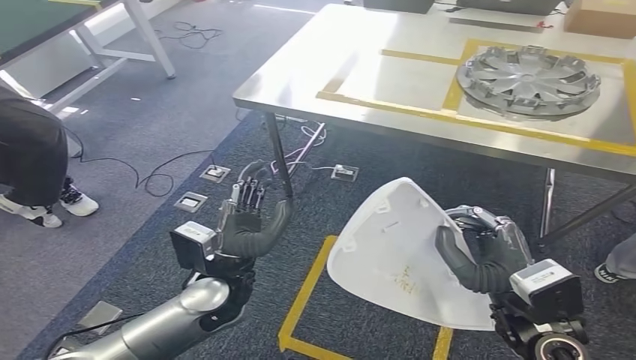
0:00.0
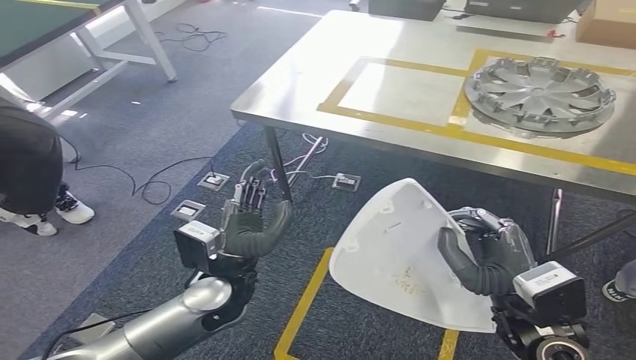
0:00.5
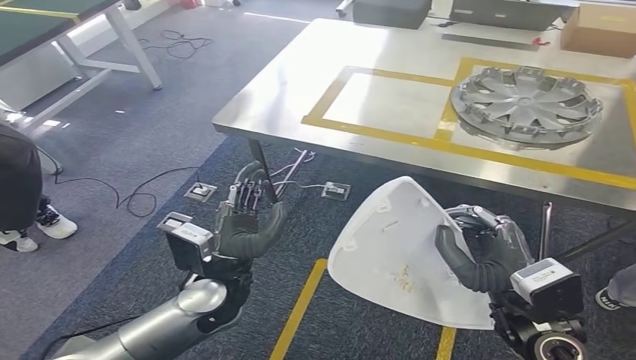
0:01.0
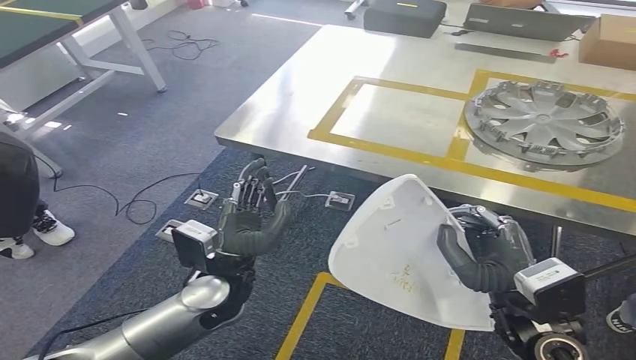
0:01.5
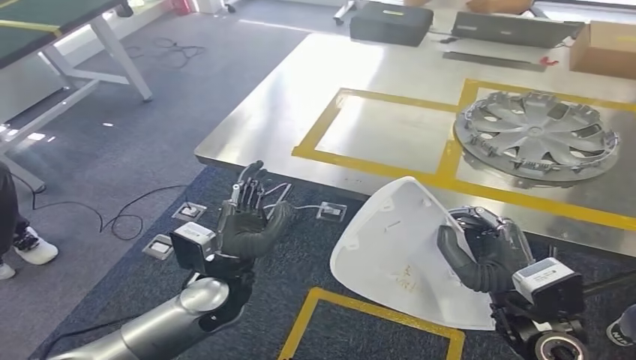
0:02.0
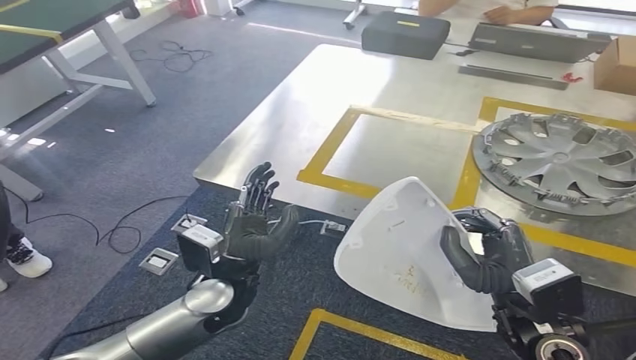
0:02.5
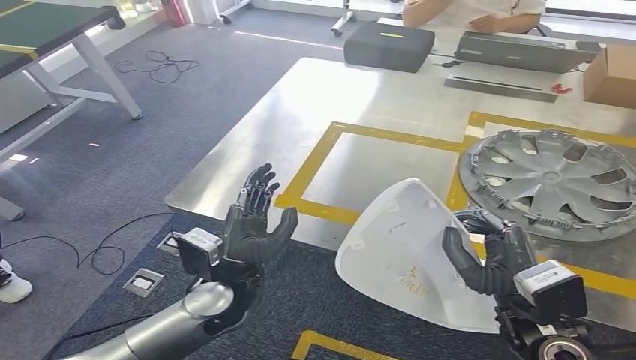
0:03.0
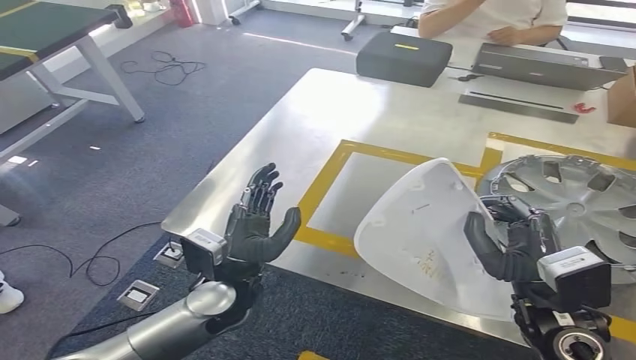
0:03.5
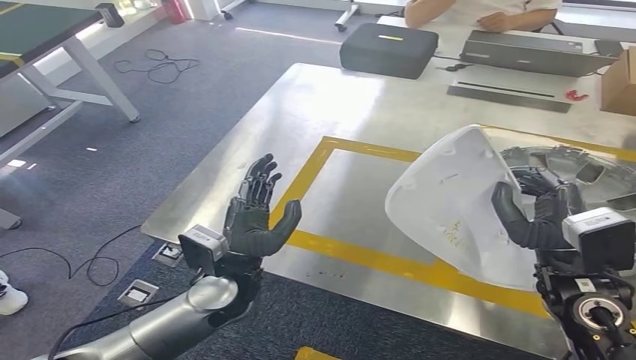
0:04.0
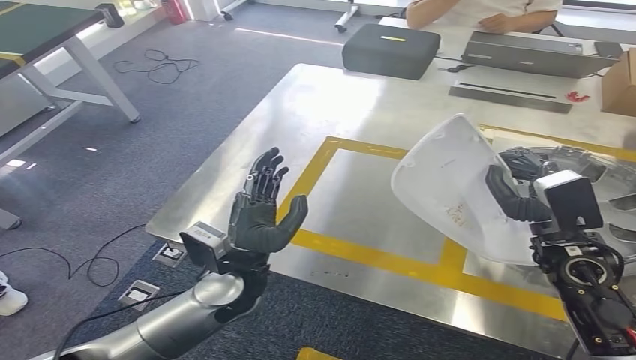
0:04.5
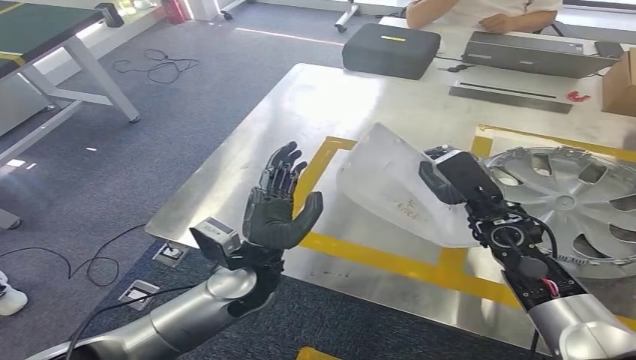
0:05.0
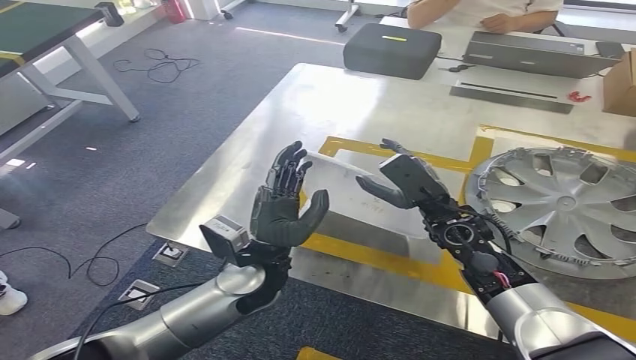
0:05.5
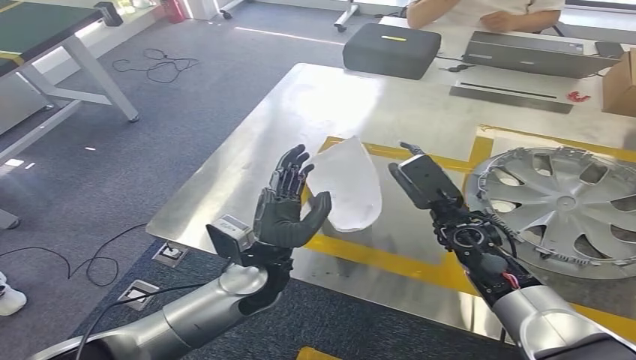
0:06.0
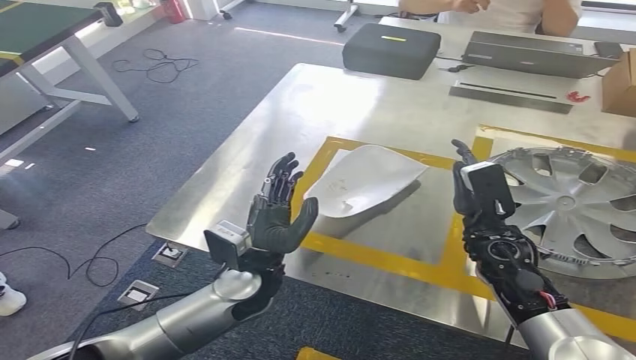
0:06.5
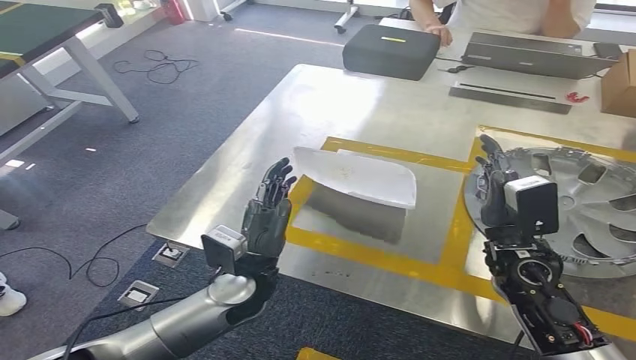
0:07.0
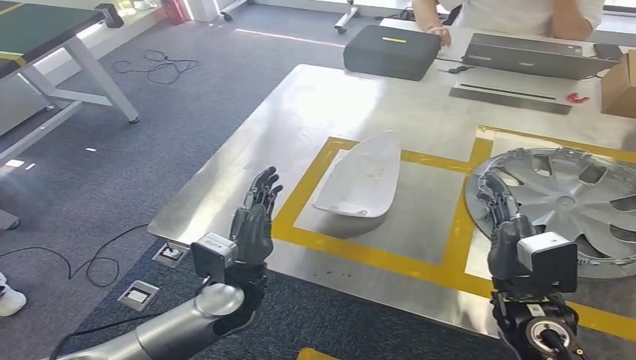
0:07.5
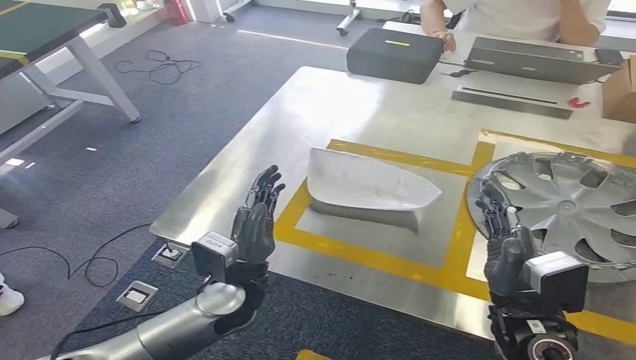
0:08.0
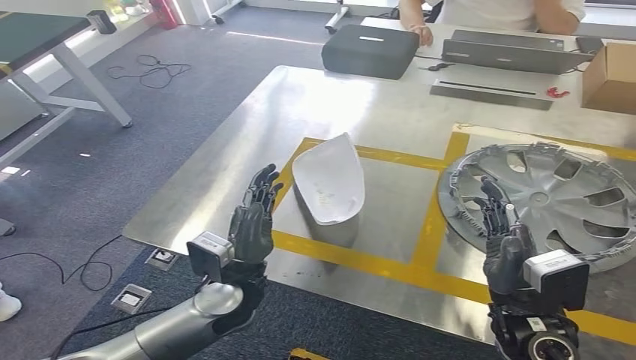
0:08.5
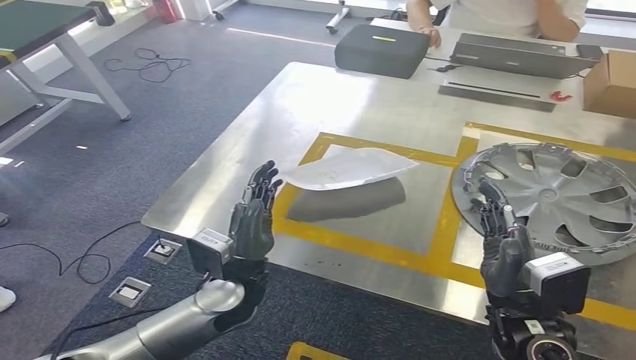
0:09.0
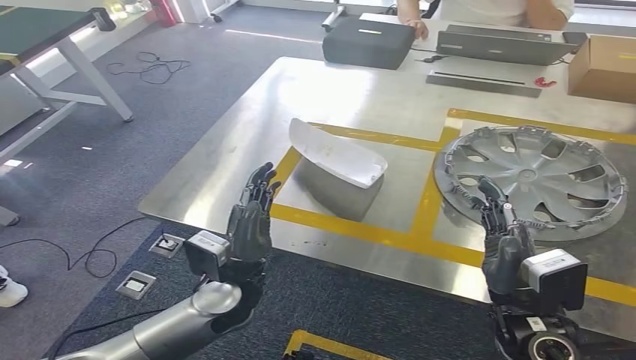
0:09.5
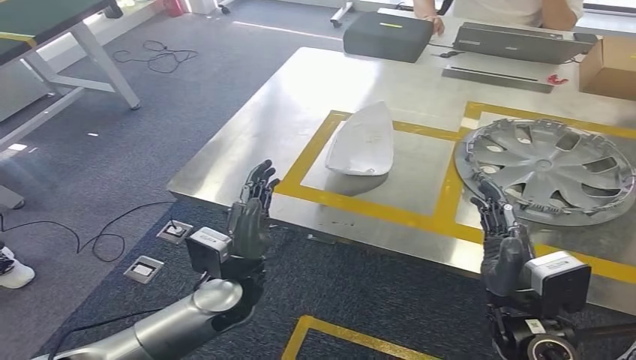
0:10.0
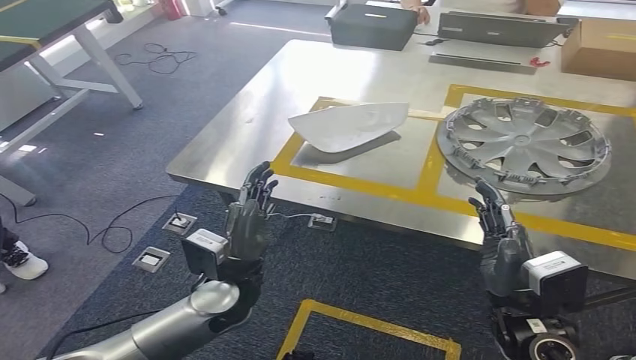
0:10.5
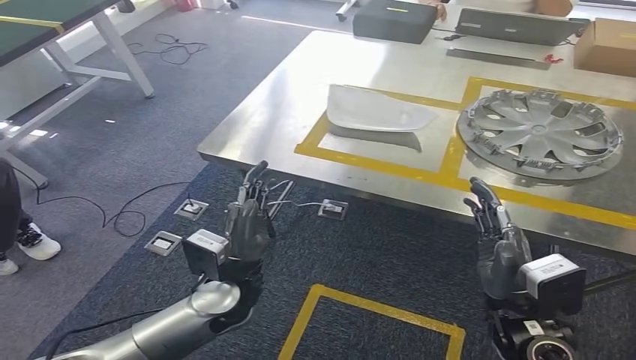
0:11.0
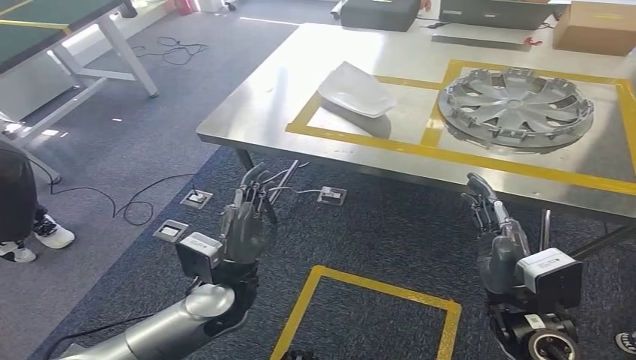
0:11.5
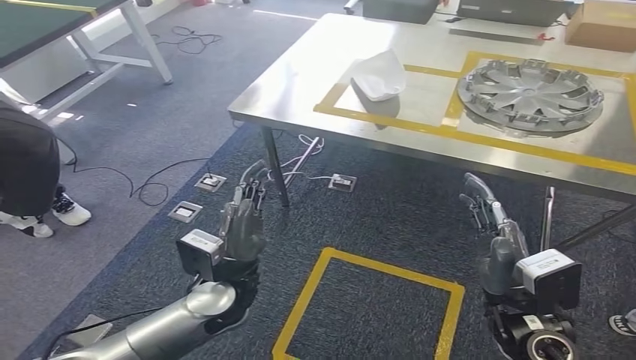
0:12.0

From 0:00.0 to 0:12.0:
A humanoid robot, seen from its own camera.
Step, from 0:00.0 to 0:02.0: Move the small parts to the workbench.
Step, from 0:02.5 to 0:10.0: Insert the small parts into the corresponding holes on the workbench.

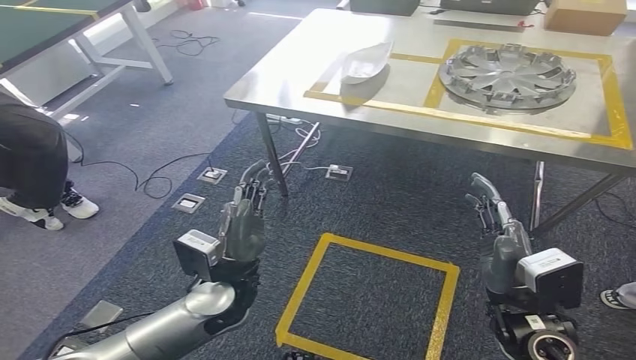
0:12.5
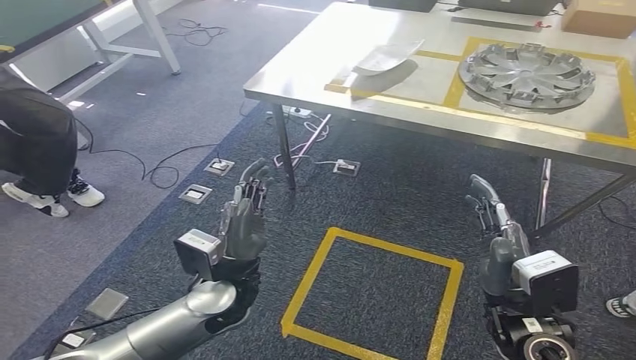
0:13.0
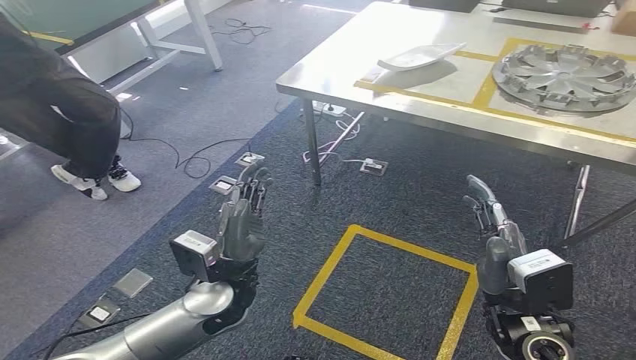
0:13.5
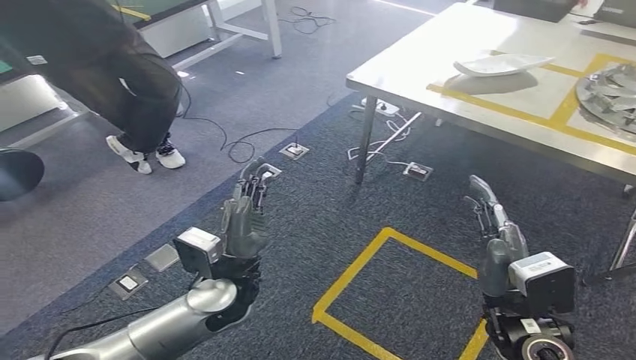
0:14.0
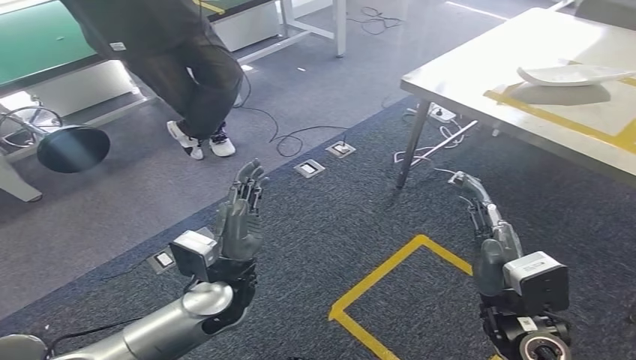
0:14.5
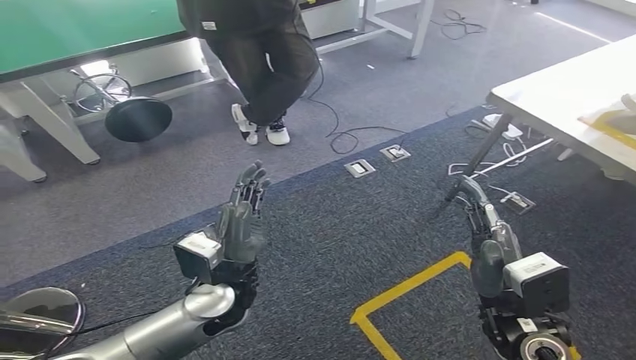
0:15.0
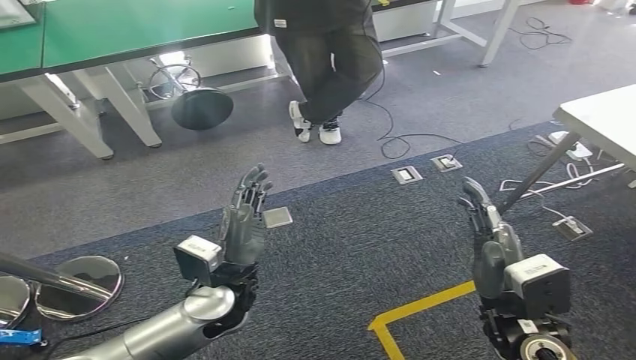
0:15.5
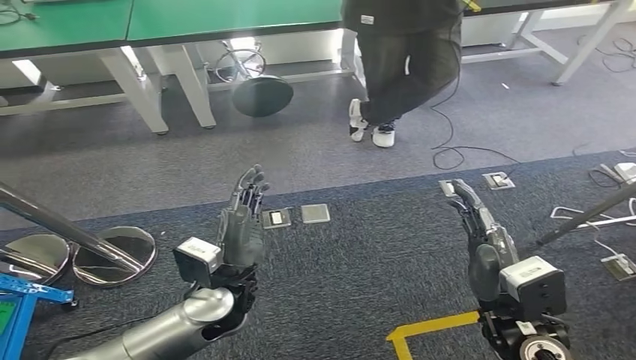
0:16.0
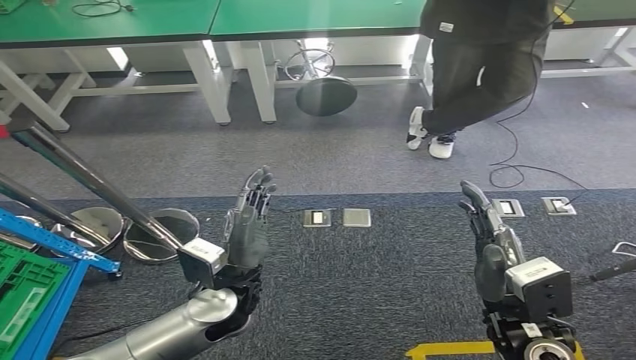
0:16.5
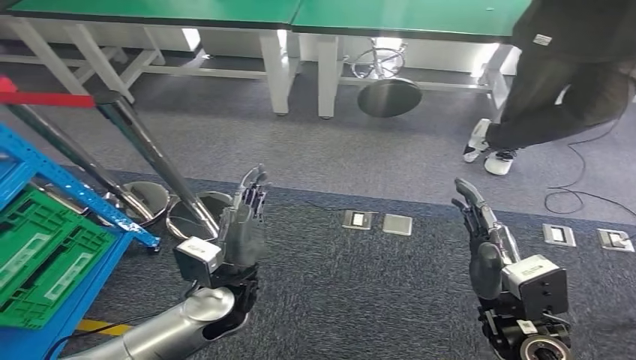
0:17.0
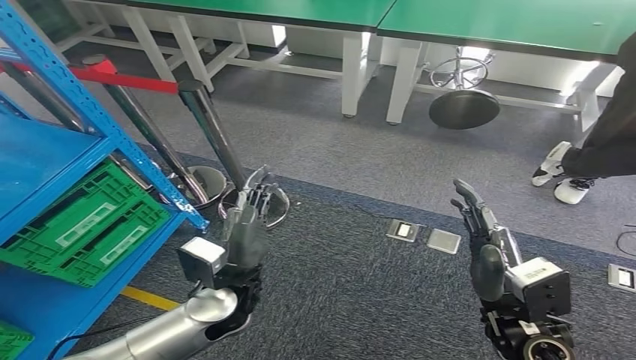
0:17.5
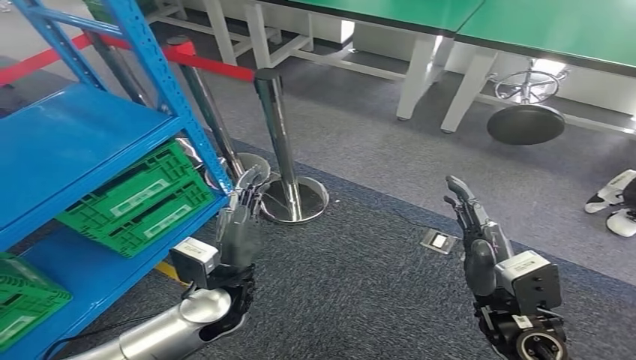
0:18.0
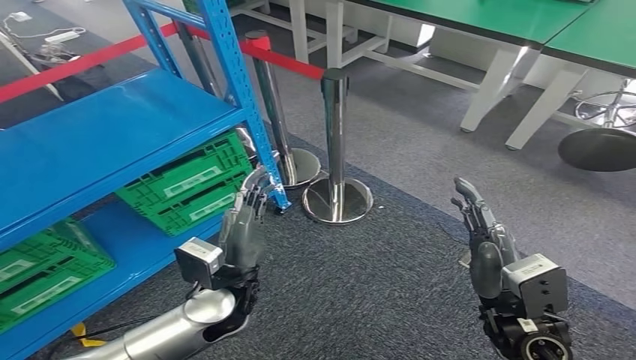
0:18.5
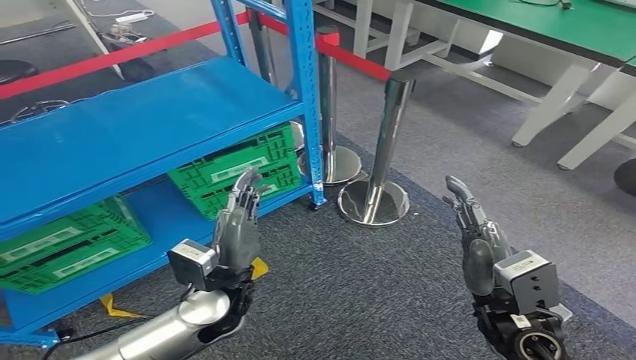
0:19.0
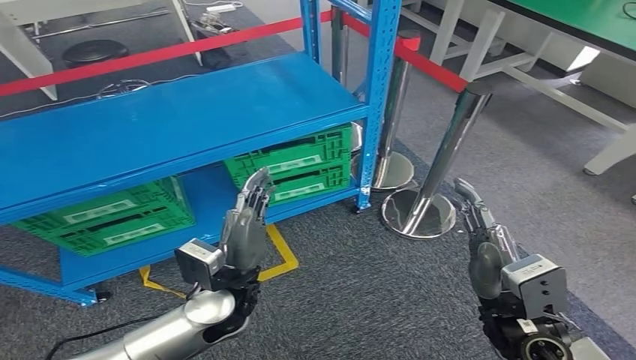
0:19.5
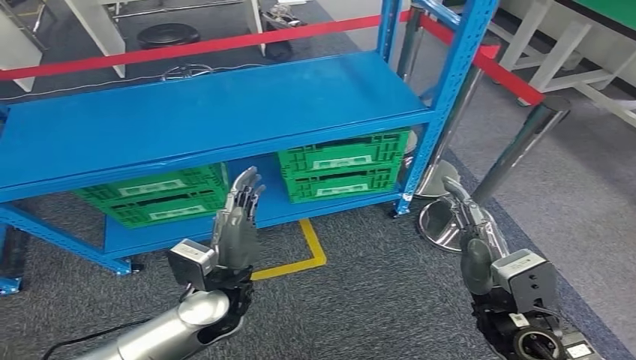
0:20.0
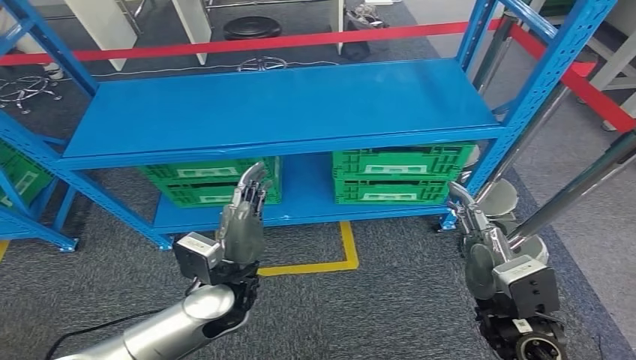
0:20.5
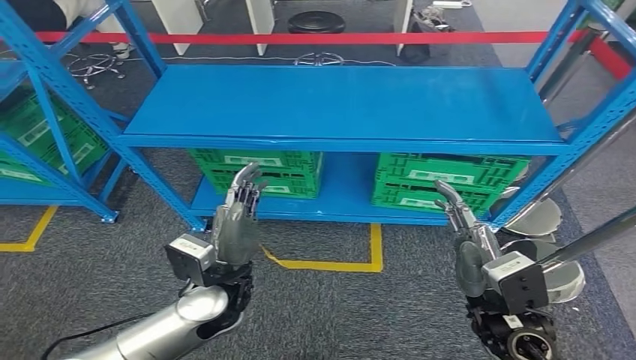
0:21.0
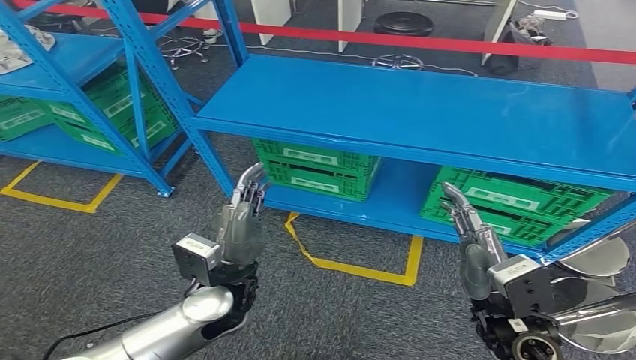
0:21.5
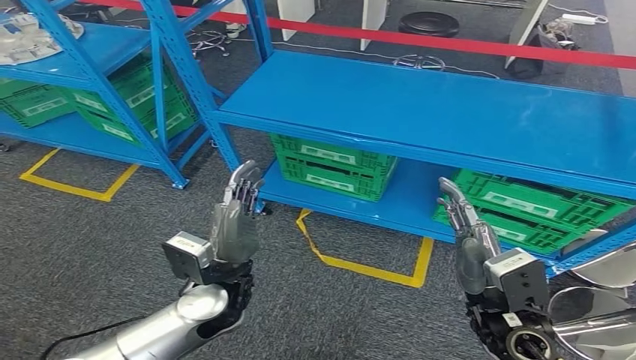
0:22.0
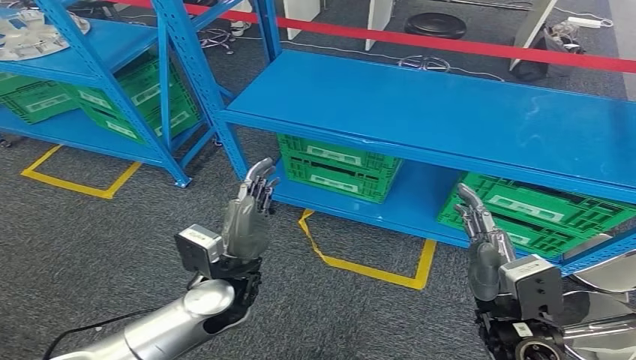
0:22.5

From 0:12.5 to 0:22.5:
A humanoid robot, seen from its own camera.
Step, from 0:12.5 to 0:22.5: Move to the initial position at the workbench.
